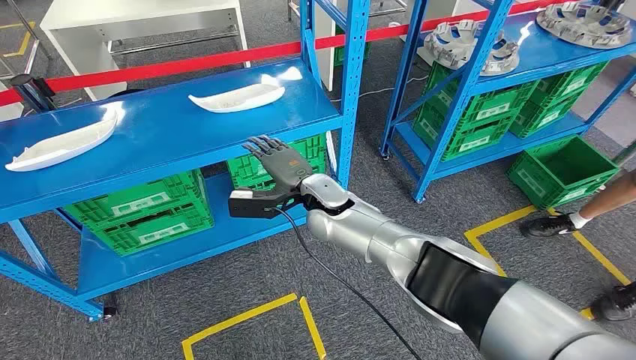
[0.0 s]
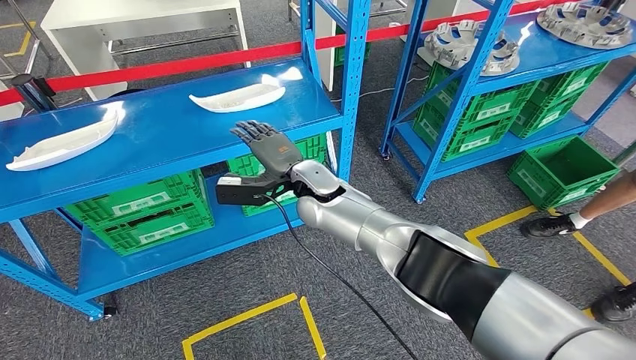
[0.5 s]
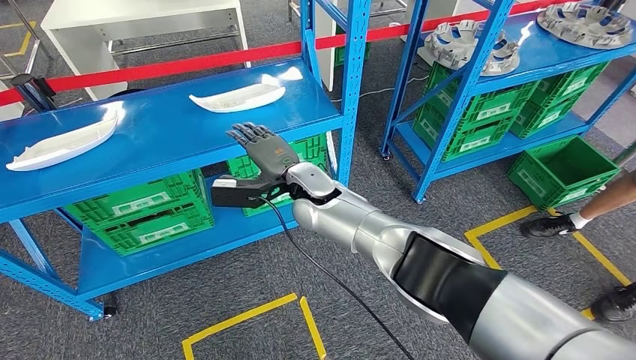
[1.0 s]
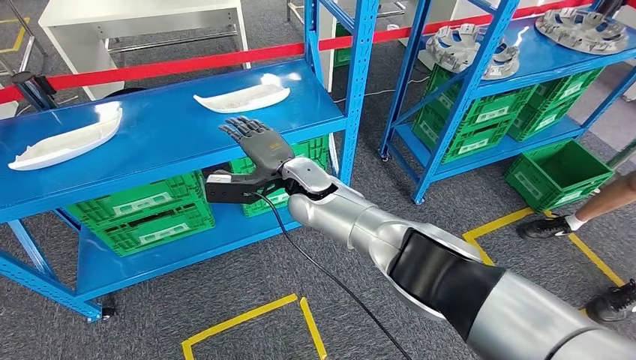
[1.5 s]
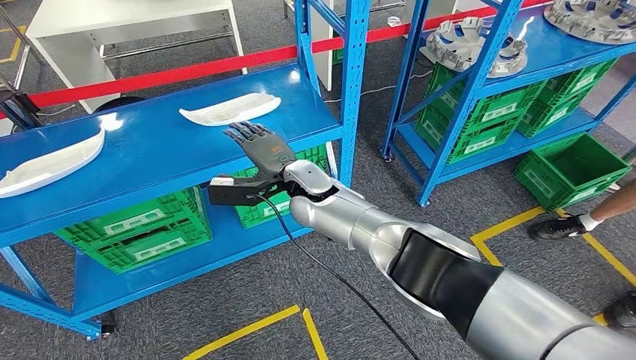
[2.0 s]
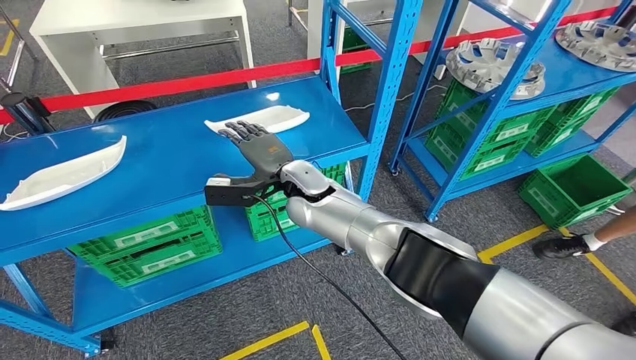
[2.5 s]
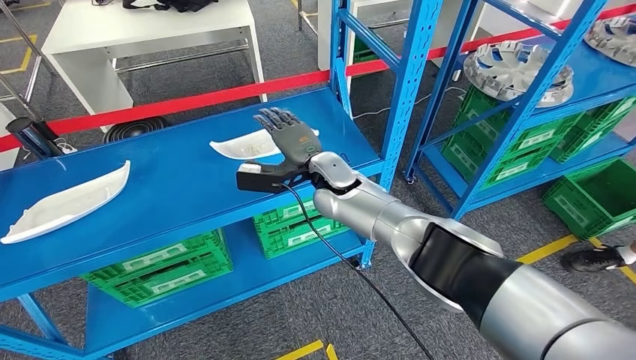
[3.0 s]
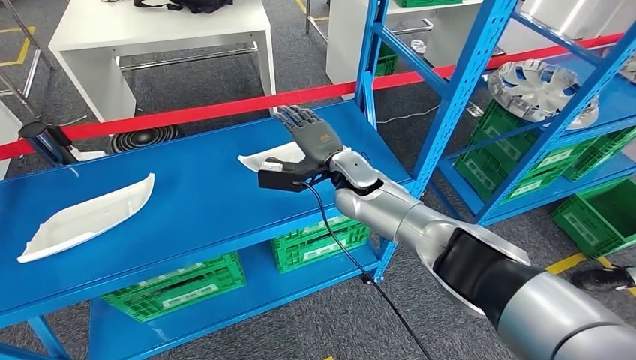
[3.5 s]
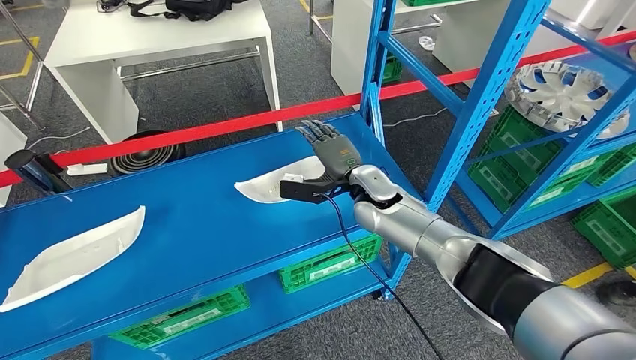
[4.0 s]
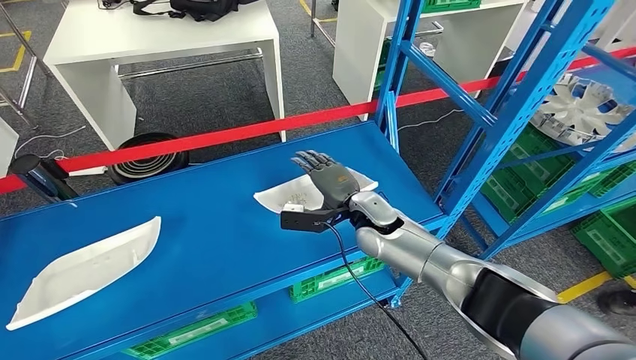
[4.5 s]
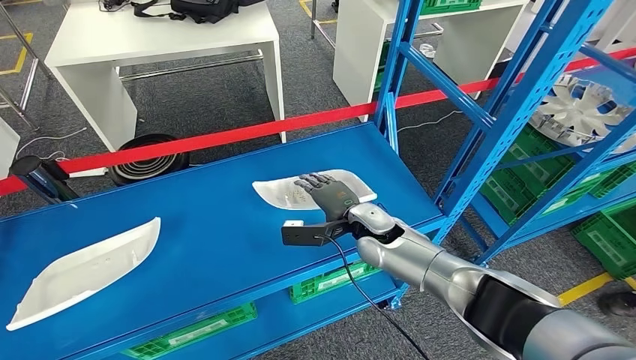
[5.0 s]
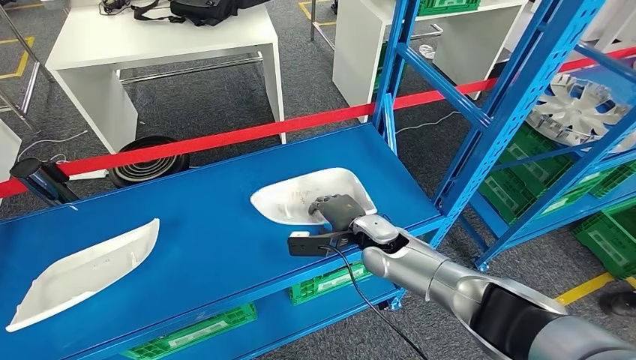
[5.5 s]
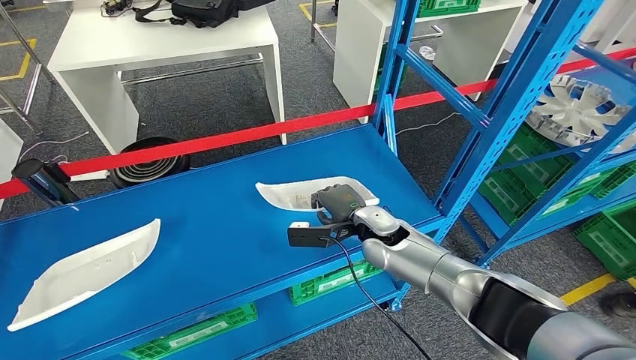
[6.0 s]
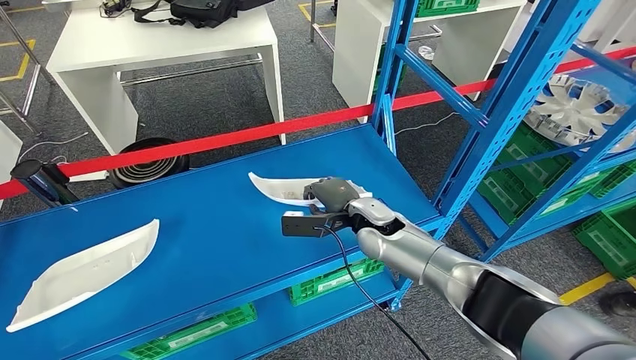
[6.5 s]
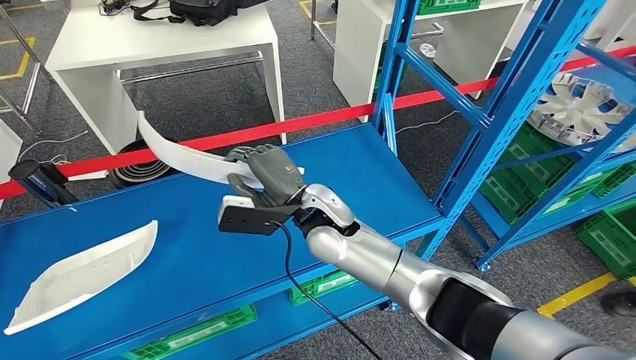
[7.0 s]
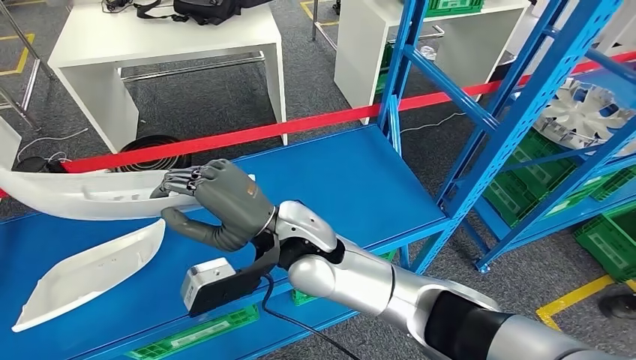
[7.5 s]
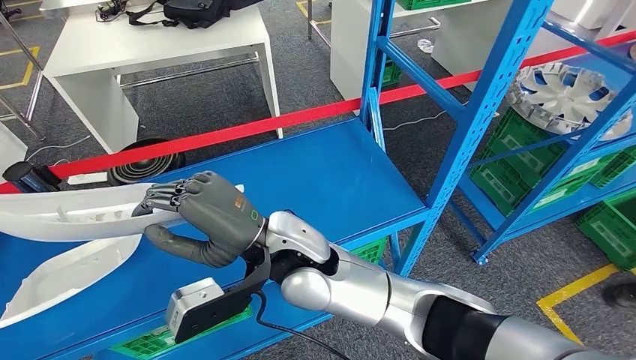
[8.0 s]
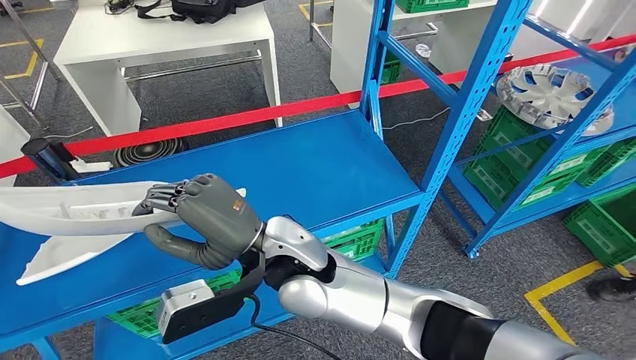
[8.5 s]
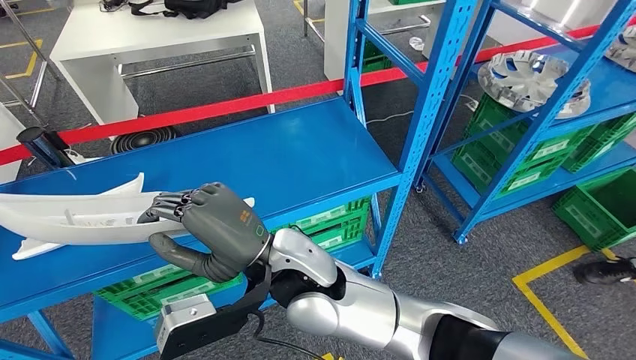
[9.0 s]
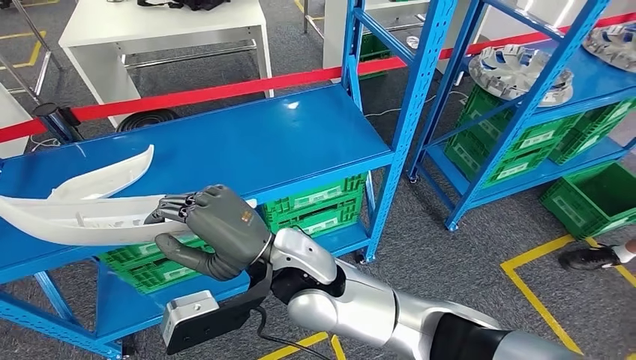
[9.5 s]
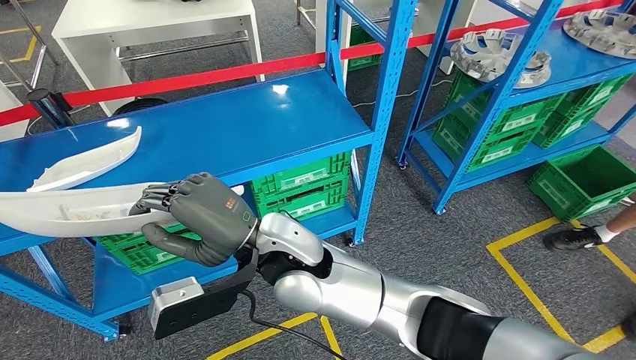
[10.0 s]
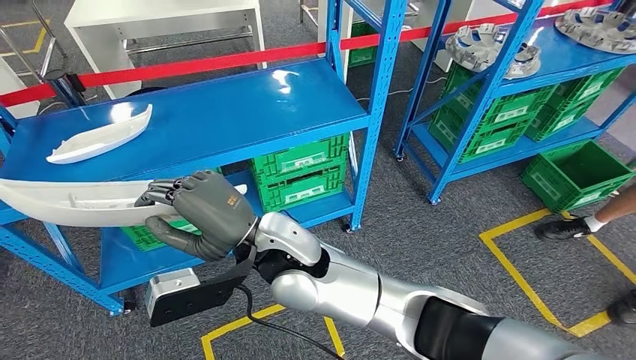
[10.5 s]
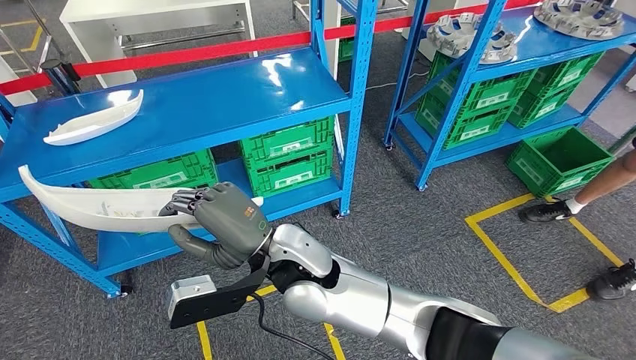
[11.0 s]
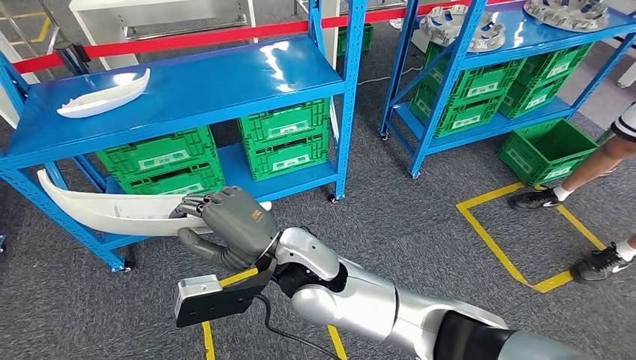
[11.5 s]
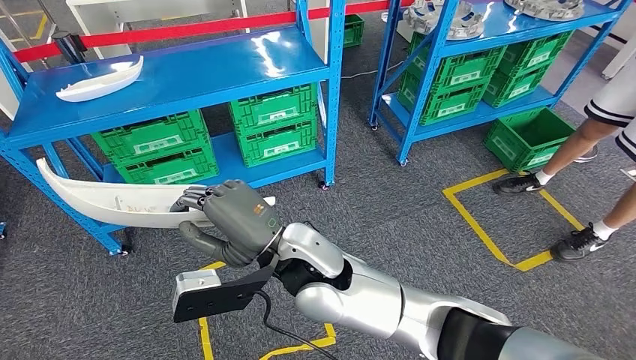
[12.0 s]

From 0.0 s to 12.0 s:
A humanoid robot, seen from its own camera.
Step, from 0.0 s to 9.5 s: Pick up the small parts from the shelf.

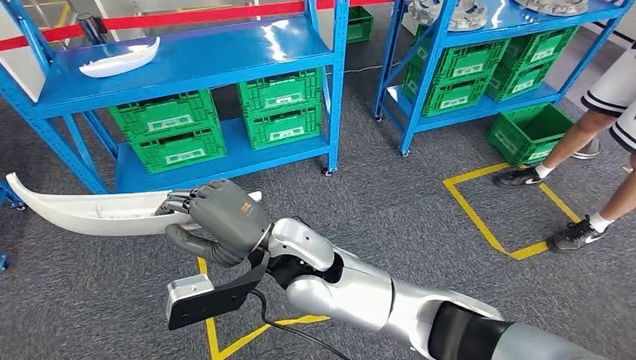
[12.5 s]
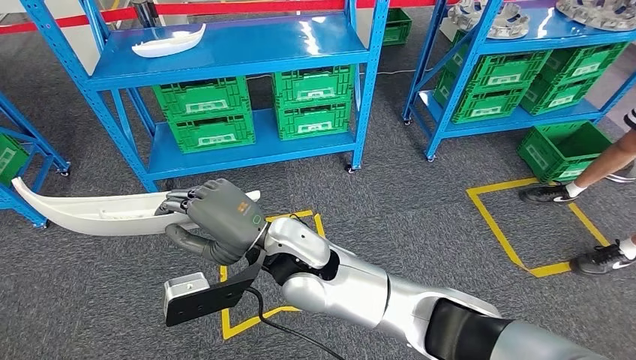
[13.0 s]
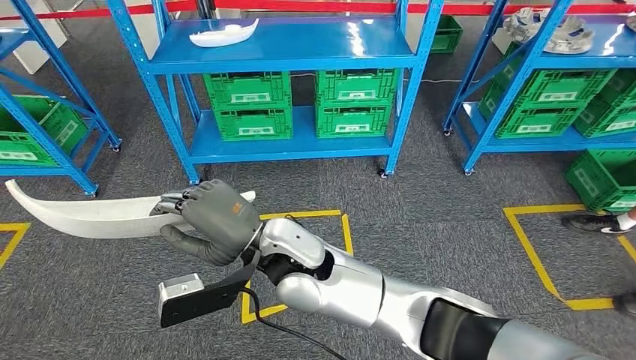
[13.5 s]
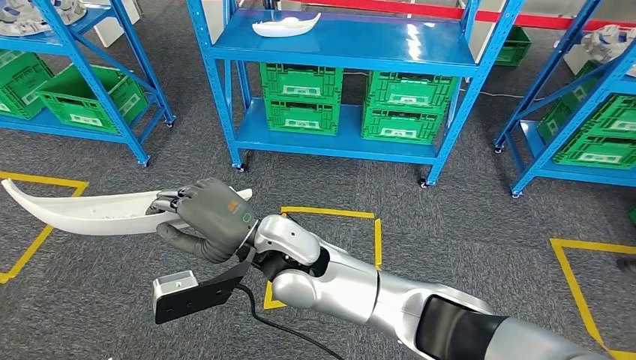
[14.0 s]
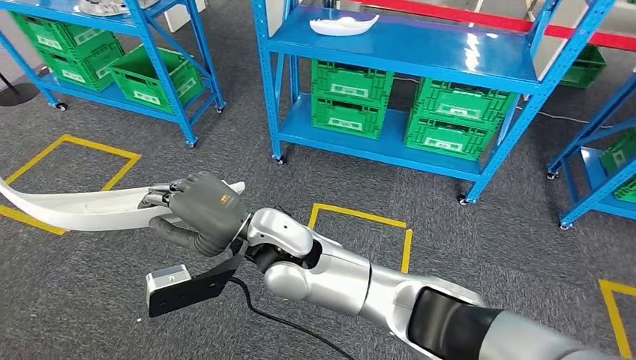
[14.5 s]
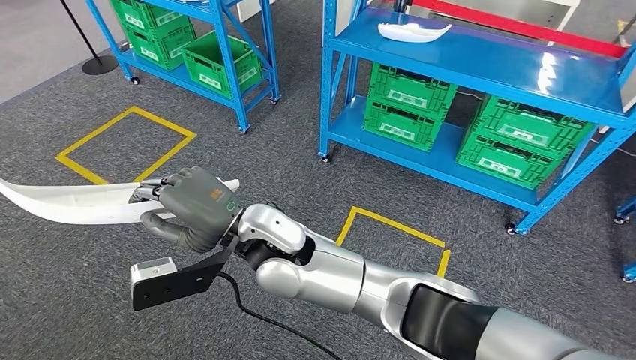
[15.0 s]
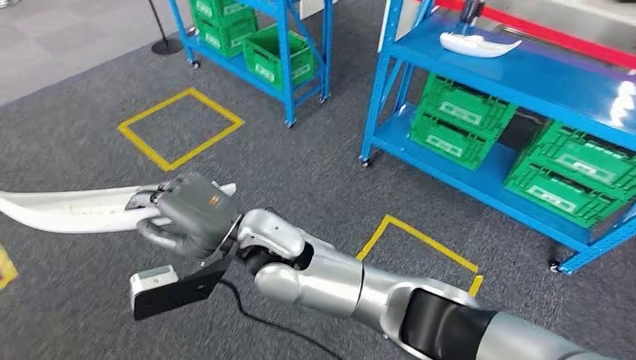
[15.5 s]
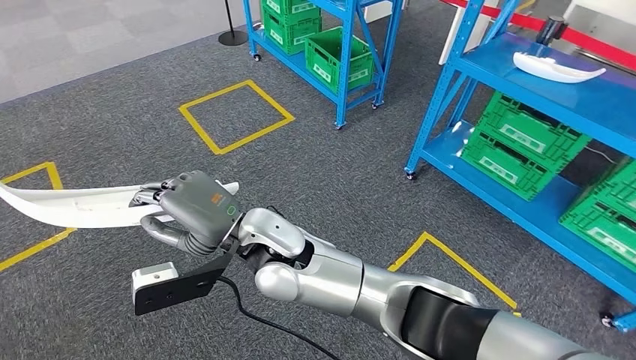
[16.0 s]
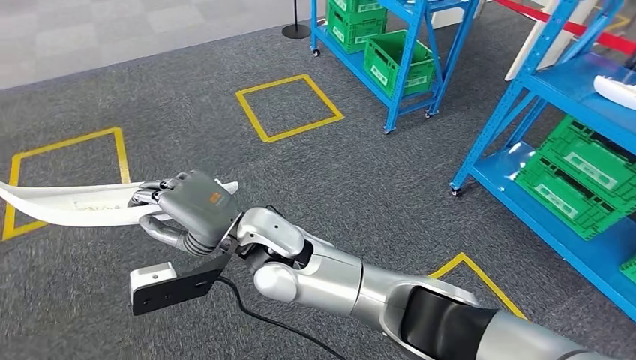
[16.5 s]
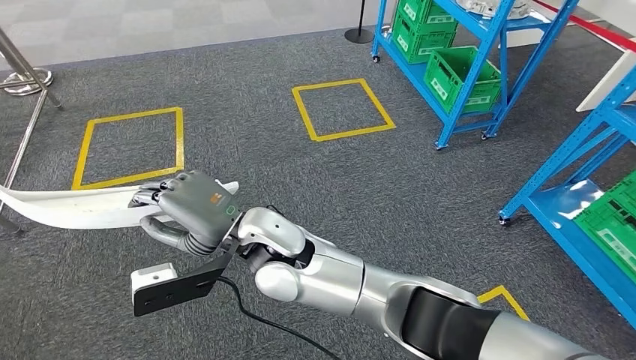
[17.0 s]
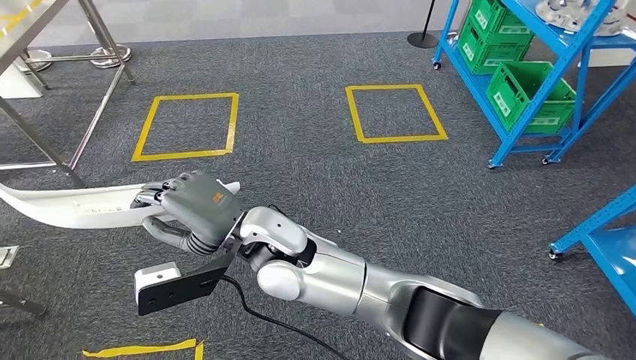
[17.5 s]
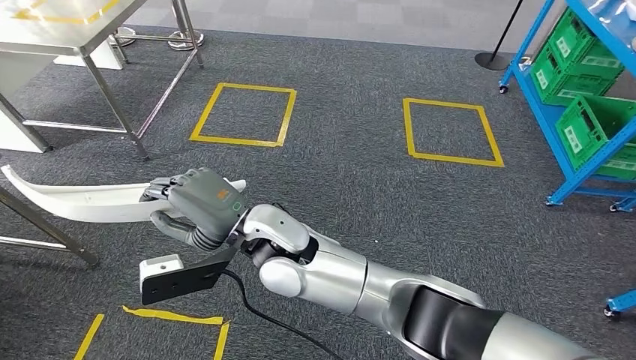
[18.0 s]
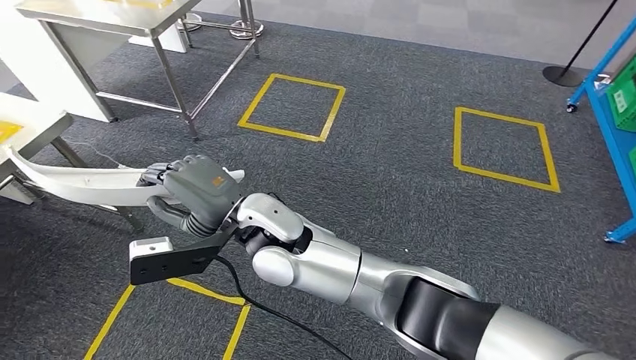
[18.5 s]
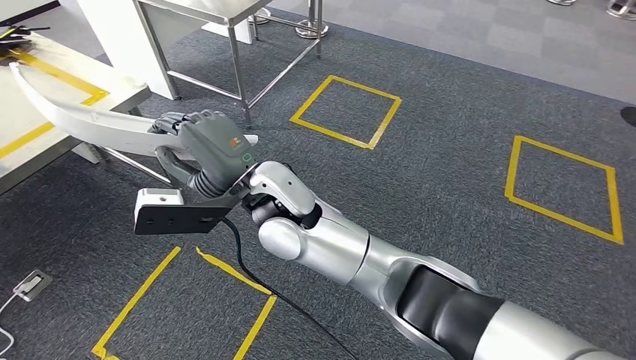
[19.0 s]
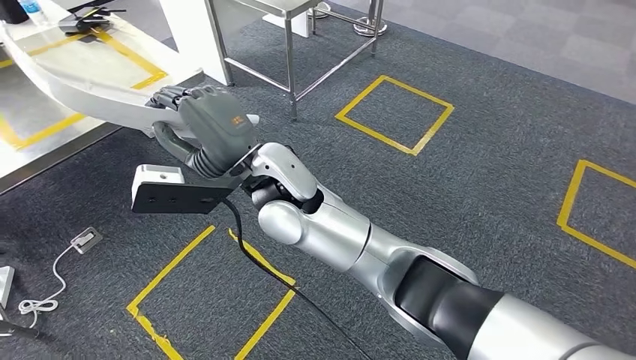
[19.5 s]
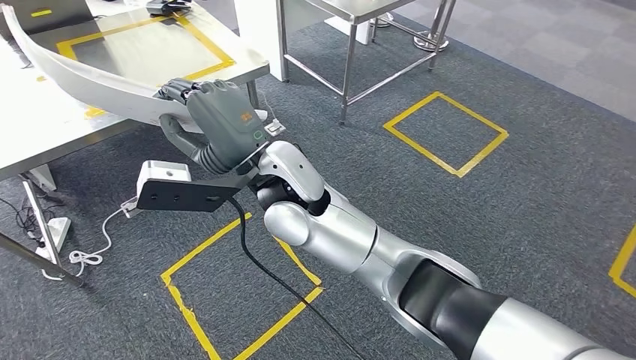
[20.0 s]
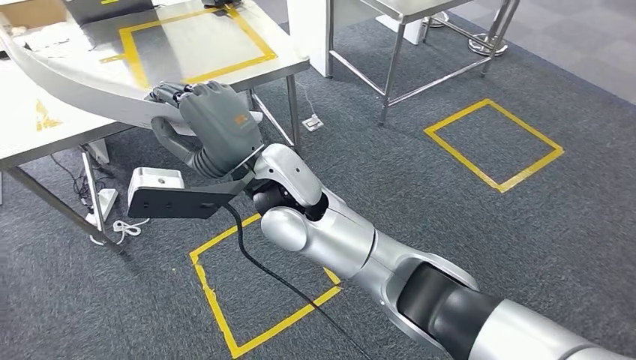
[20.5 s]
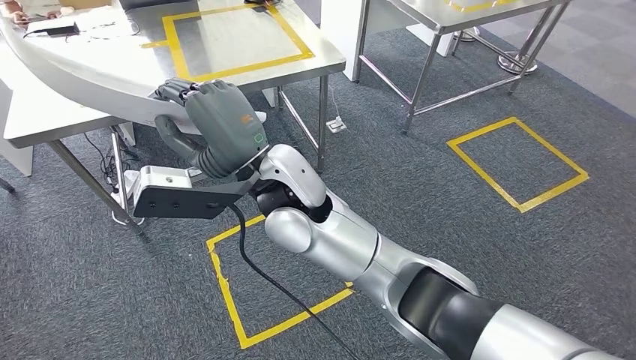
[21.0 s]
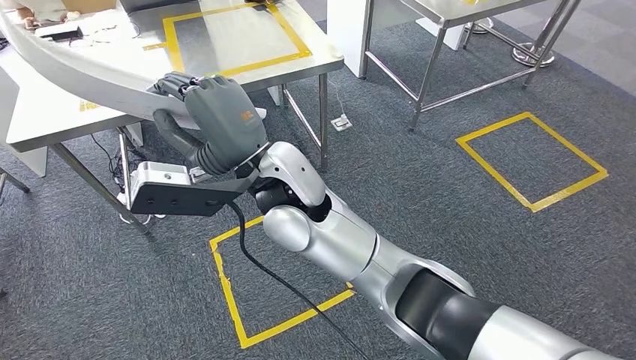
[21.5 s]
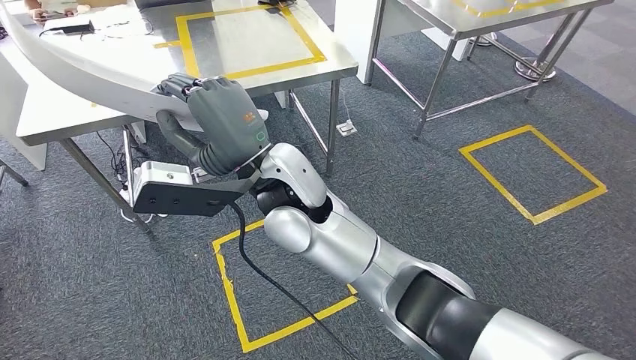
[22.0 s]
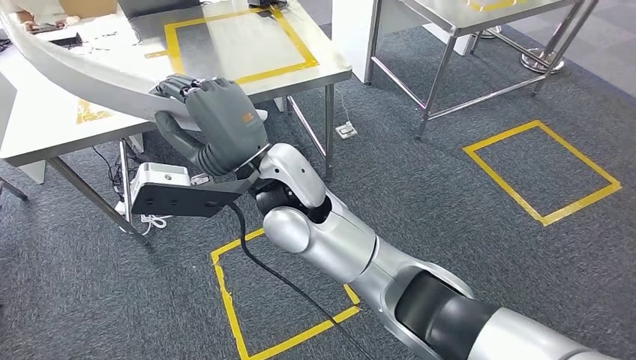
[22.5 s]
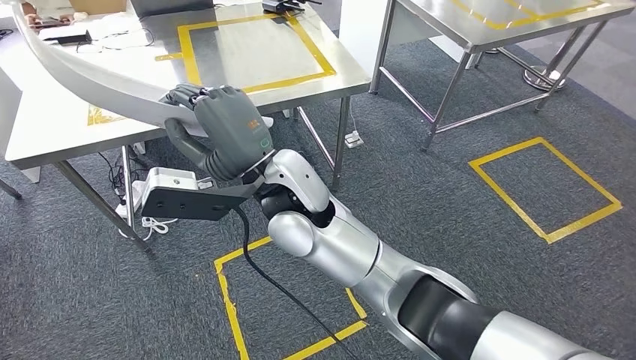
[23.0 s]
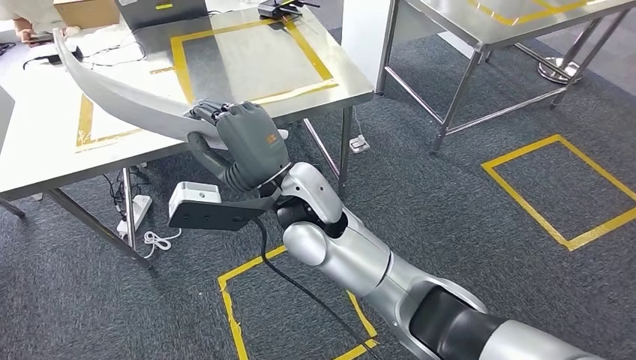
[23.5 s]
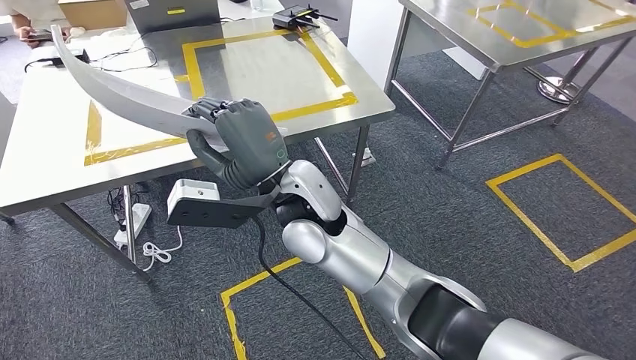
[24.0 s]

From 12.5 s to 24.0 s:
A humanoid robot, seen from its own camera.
Step, from 12.5 s to 21.5 s: Move the small parts to the workbench.
